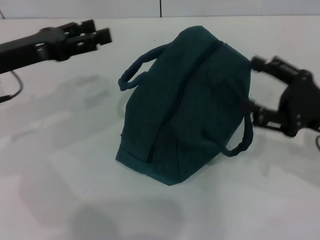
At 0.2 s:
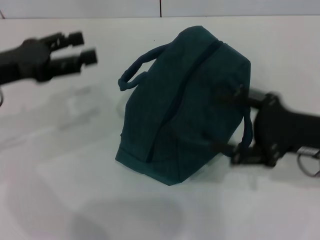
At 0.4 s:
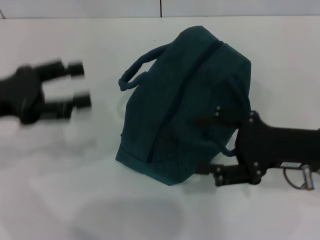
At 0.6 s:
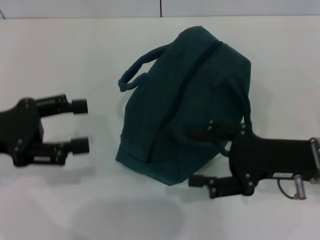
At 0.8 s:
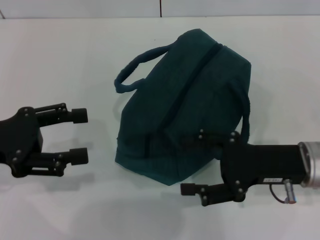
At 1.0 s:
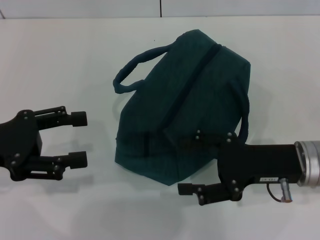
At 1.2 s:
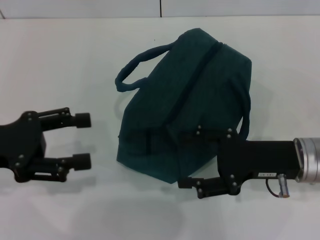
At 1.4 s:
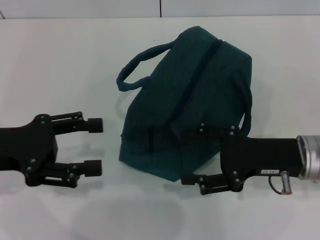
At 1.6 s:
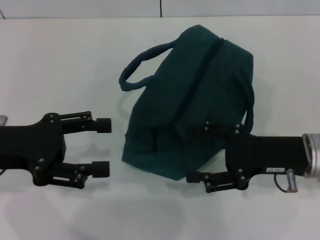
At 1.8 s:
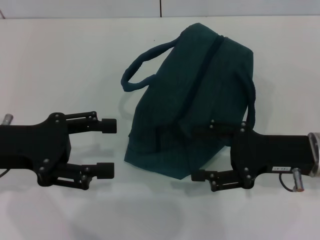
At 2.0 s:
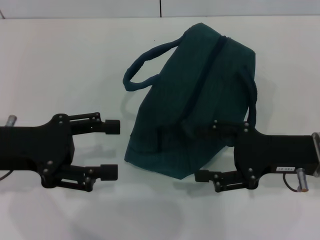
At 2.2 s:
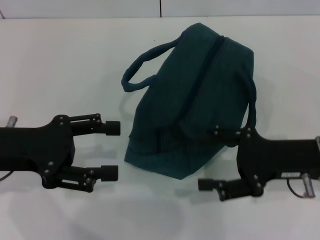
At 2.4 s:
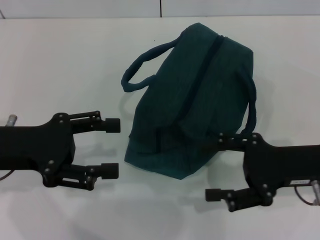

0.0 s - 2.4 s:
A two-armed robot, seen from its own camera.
0.0 s - 1.2 s: The left gripper travels backward by some 10 cm. Meanwhile the right gripper moves to the left, about 5 cm.
1.2 s - 2.4 s: The grippers stay close to where they were, moving slightly.
